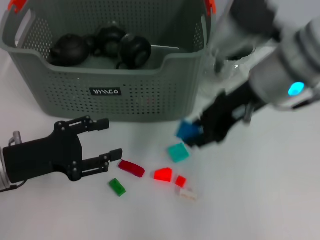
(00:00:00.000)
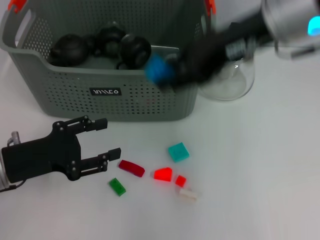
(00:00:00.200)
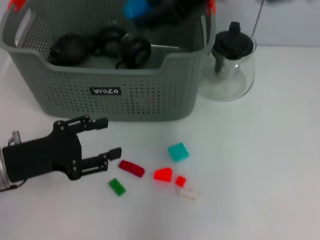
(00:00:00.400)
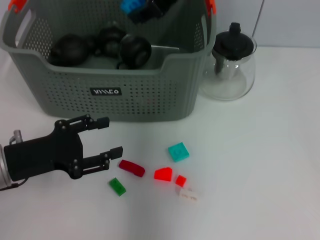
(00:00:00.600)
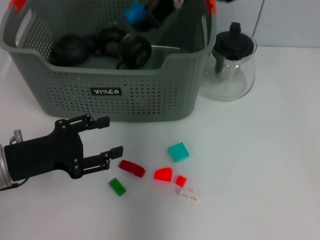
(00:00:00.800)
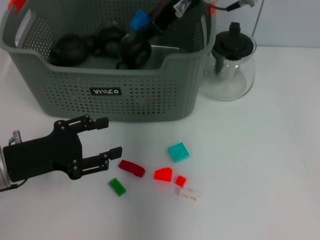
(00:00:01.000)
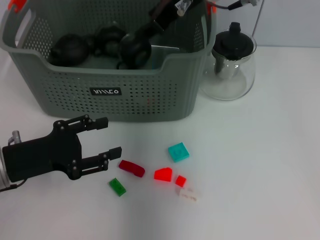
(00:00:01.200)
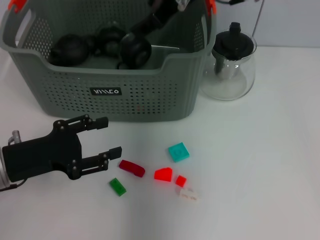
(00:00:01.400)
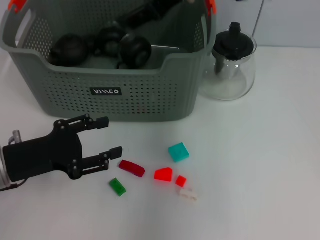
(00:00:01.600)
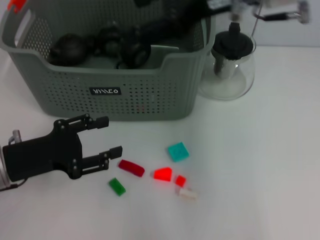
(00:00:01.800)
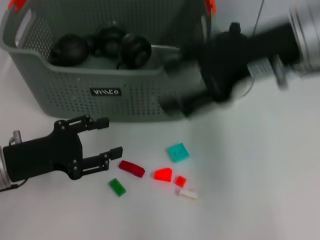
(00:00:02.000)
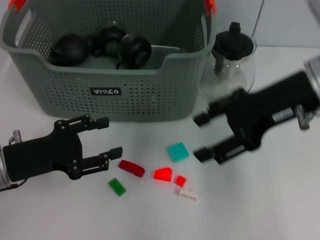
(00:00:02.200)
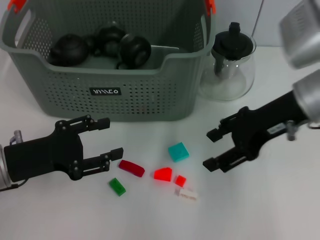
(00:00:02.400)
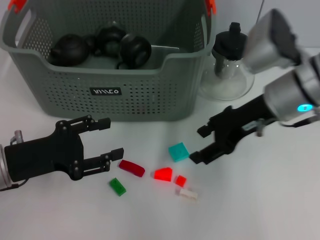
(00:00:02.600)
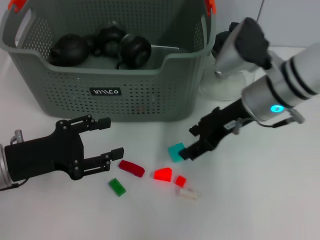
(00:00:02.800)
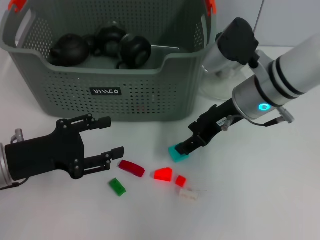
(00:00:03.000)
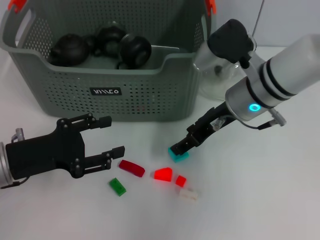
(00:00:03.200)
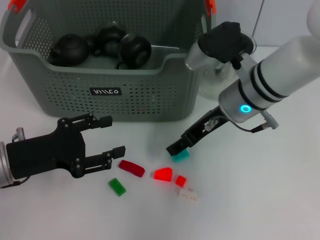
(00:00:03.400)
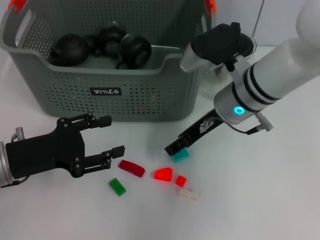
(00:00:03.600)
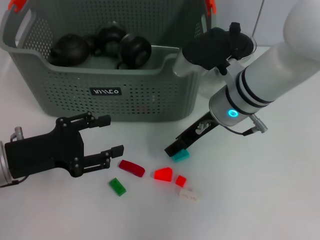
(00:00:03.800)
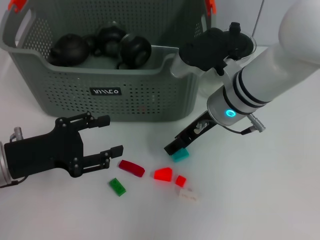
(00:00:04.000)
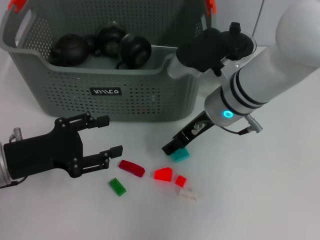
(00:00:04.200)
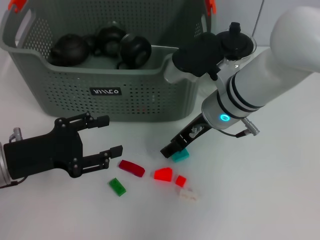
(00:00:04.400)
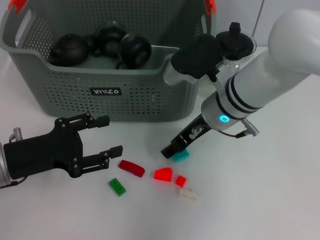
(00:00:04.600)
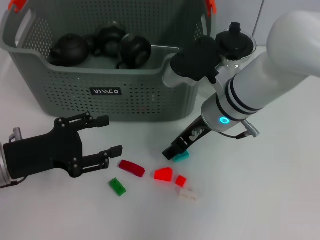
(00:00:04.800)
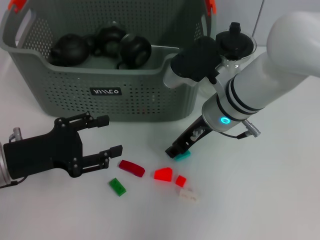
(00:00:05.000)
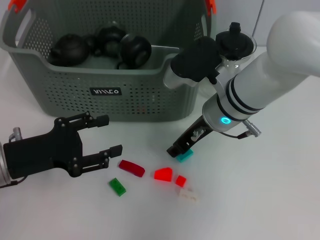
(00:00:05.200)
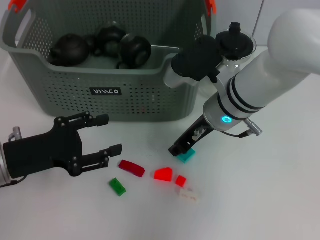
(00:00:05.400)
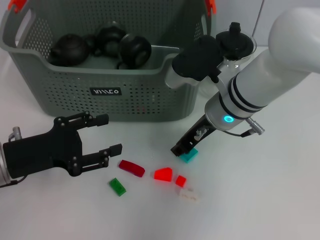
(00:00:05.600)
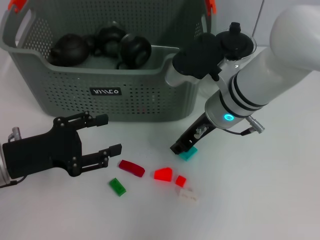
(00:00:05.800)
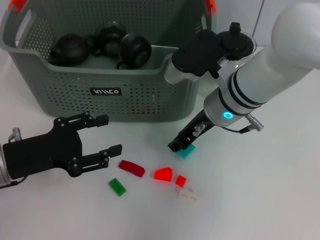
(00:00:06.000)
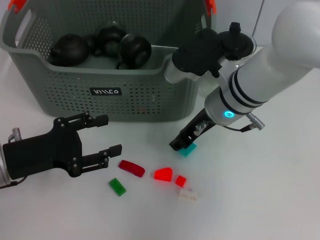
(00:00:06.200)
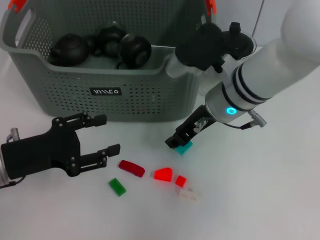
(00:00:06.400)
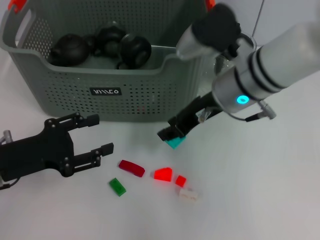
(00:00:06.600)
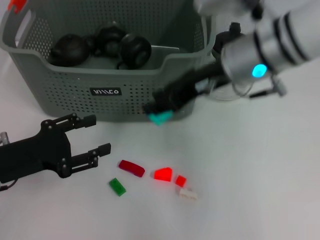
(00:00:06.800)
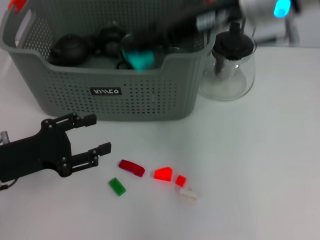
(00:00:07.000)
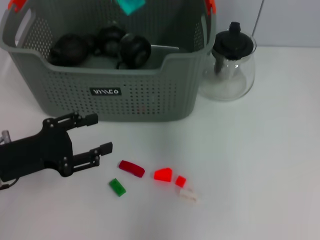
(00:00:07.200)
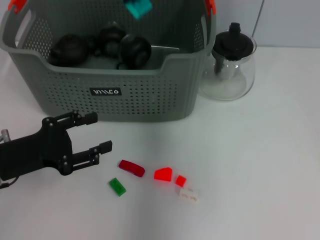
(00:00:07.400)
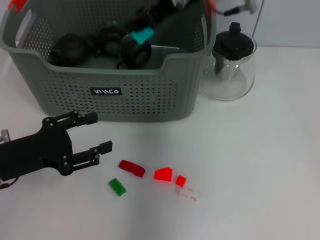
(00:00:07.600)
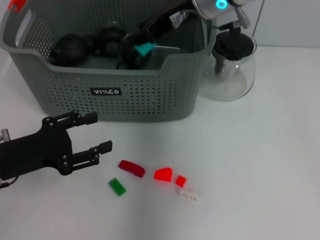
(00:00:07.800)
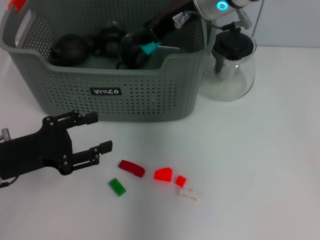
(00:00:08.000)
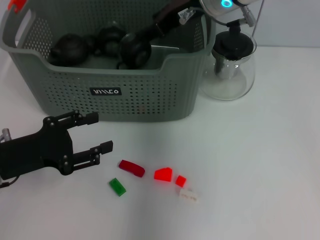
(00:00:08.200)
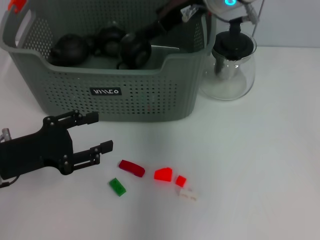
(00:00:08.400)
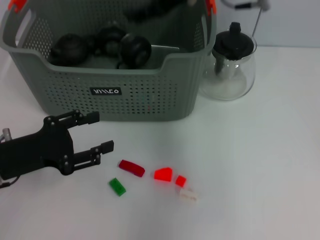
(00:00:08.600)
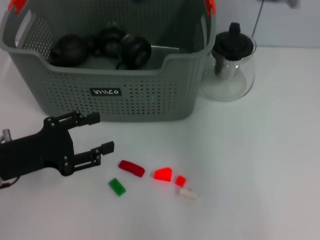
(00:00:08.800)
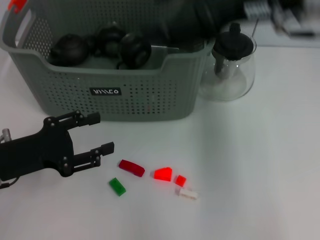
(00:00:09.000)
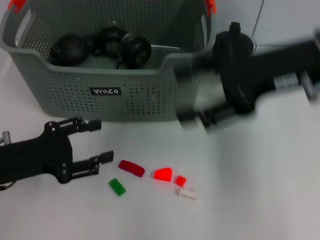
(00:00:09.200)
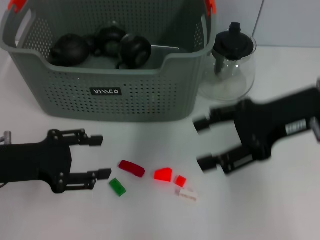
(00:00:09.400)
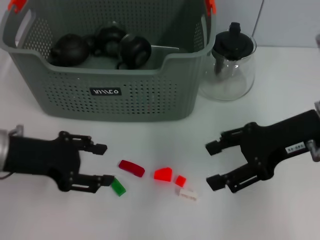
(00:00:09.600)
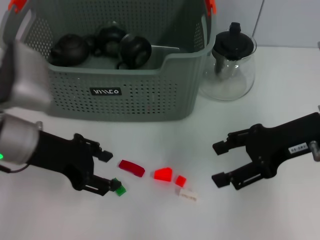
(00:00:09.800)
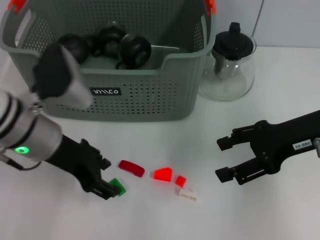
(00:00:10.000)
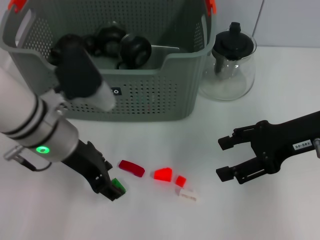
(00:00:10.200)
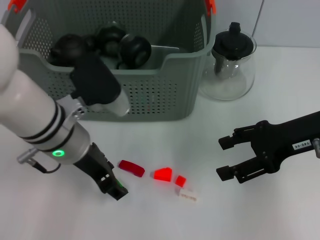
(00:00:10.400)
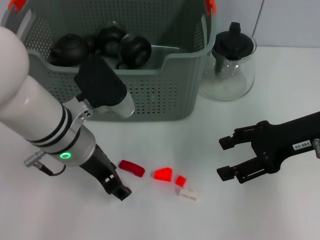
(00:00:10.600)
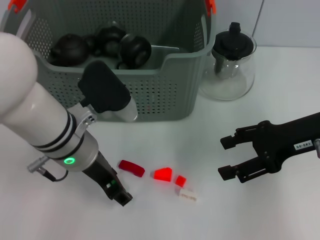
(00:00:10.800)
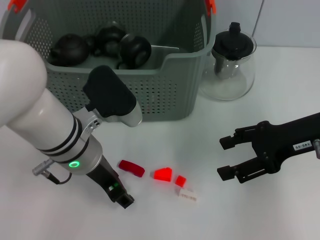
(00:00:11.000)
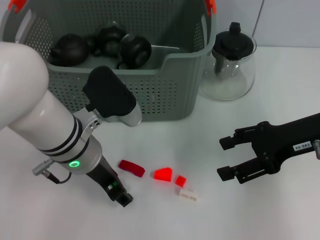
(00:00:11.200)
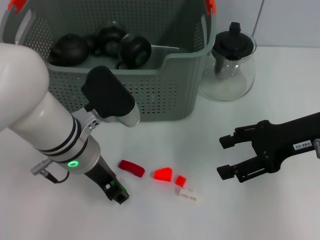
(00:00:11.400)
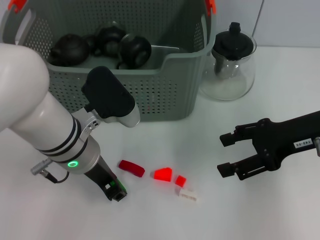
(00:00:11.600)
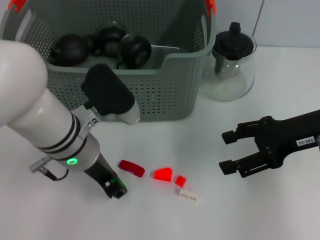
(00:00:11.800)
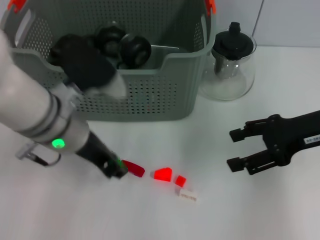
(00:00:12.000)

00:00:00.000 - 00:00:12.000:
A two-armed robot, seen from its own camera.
Task of the whole recording: pick up the teacup on the table and place it into the storage bin, pick up the block on the table and place it into the storage bin.
Step, 00:00:00.000 - 00:00:01.400: Place the dark blue block in the storage box with right gripper.
Step, 00:00:01.600 - 00:00:05.600: Grasp the light blue block with right gripper.
Step, 00:00:05.800 - 00:00:08.200: Place the light blue block in the storage box with right gripper.
Step, 00:00:08.400 - 00:00:11.800: Grasp the green block with left gripper.
00:00:00.000 - 00:00:01.600: The right gripper travels upward and forward by approximately 10 cm, and opens its fingers.
00:00:01.600 - 00:00:03.000: The right gripper is displaced downward by approximately 15 cm.
00:00:03.000 - 00:00:04.400: The right gripper shifts by roughly 5 cm.
00:00:04.400 - 00:00:06.000: The right gripper closes its fingers.
00:00:06.000 - 00:00:07.600: The right gripper travels upward and forward by about 15 cm.
00:00:07.600 - 00:00:09.000: The right gripper goes roughly 15 cm to the right and backward, and opens its fingers.
00:00:09.000 - 00:00:10.400: The left gripper is displaced to the right and forward by about 15 cm; the right gripper goes roughly 15 cm downward and to the right.
00:00:10.400 - 00:00:12.000: The grippers stay close to where they were, moving slightly.

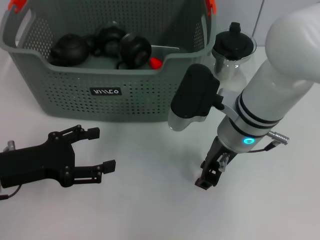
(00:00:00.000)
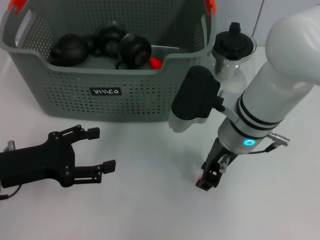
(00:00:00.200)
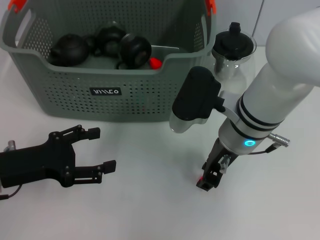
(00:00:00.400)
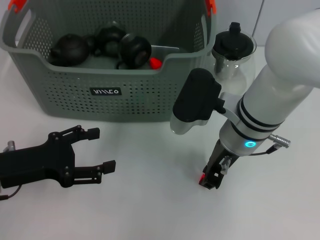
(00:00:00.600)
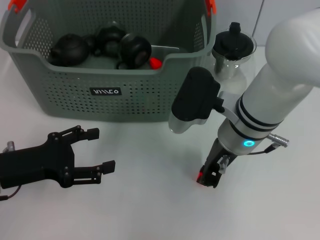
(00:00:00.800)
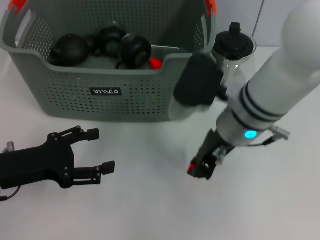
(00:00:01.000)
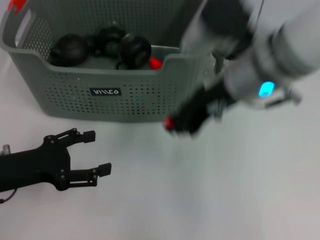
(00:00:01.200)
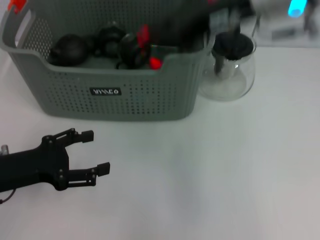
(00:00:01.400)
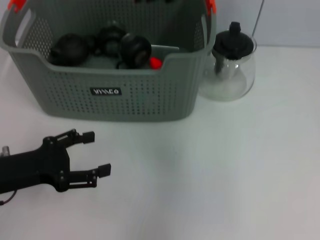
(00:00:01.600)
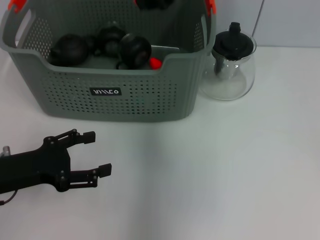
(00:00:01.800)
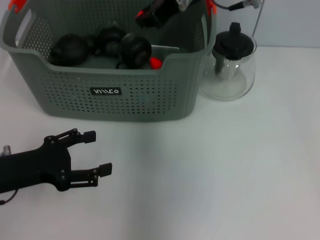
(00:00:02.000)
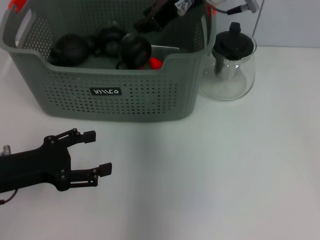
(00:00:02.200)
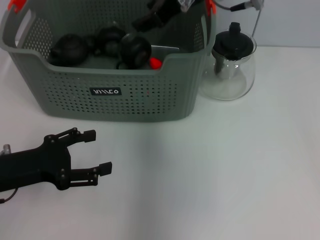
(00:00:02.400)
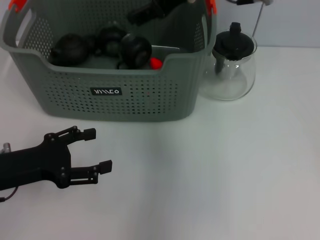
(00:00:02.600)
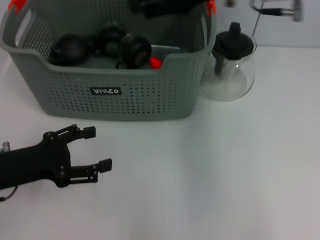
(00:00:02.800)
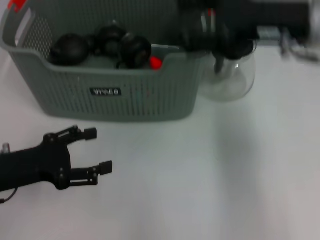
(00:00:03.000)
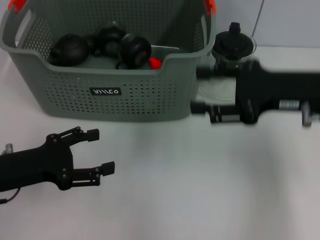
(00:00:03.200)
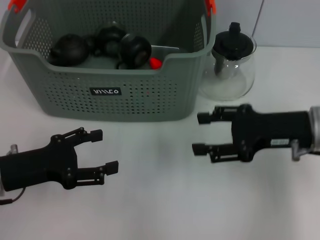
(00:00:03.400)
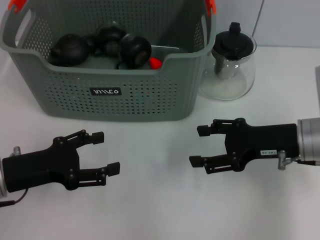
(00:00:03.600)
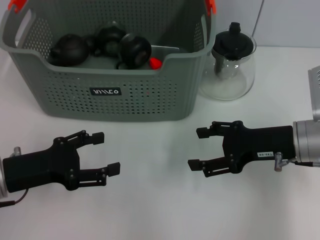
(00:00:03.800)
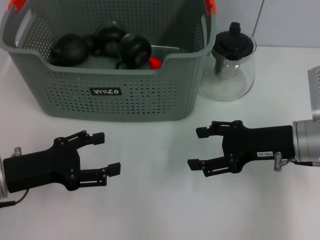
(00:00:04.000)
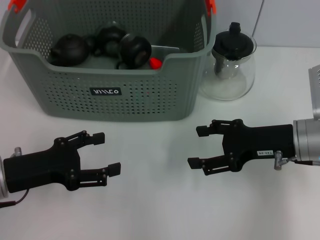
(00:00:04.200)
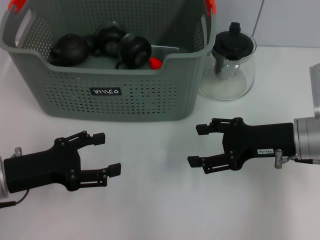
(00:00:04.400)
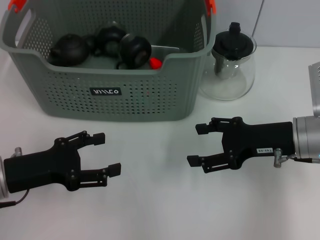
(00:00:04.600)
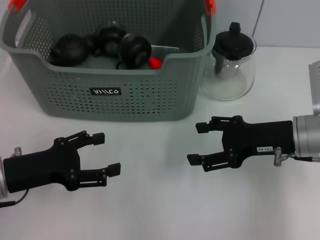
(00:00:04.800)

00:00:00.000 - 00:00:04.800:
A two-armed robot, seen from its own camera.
Task of the whole recording: pick up the teacup on the table and place it into the storage bin, pick up the block on the table and place it into the storage bin.
Step, 00:00:00.800 - 00:00:02.000: Place the orange block in the storage box with right gripper.
00:00:00.000 - 00:00:01.600: The right gripper is displaced upward by about 20 cm.
00:00:01.600 - 00:00:03.200: The right gripper heads downward, to the right and backward, covering roughly 20 cm, and opens its fingers.
00:00:03.200 - 00:00:04.800: The right gripper travels downward by some 5 cm.
